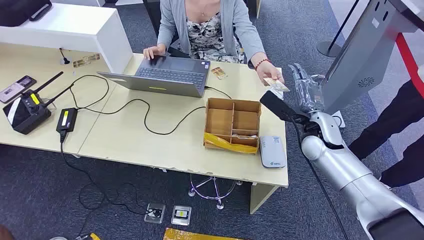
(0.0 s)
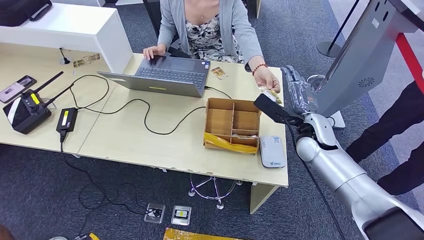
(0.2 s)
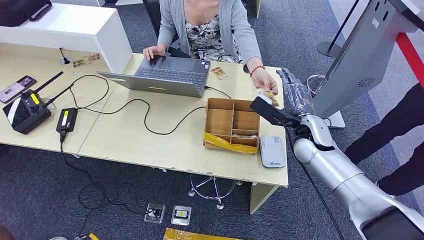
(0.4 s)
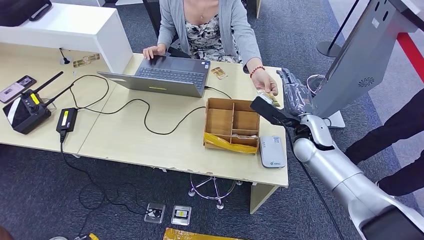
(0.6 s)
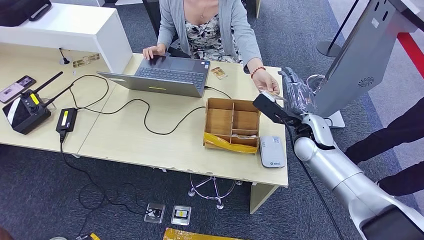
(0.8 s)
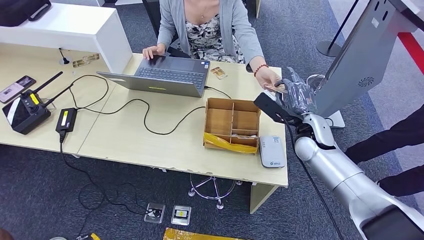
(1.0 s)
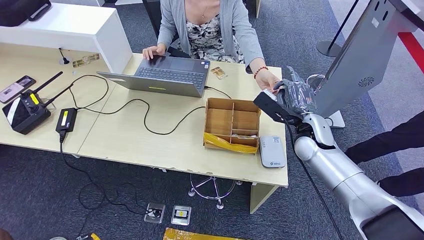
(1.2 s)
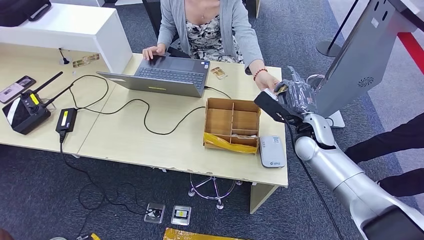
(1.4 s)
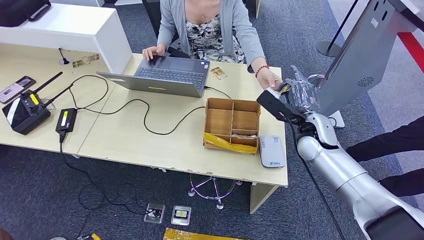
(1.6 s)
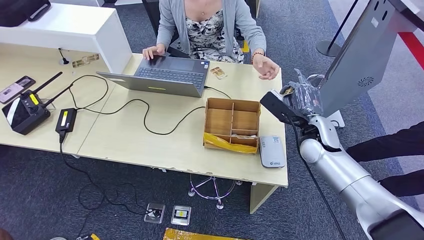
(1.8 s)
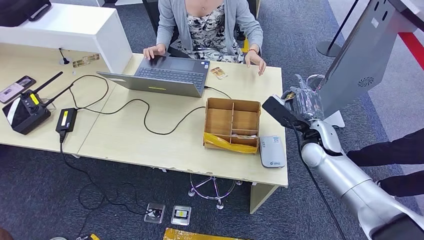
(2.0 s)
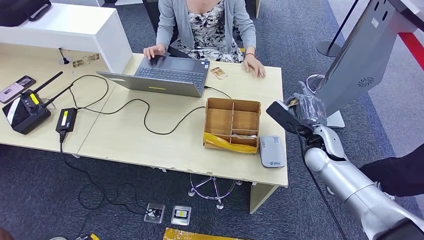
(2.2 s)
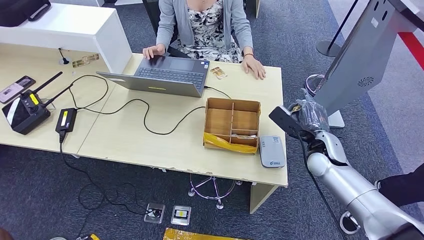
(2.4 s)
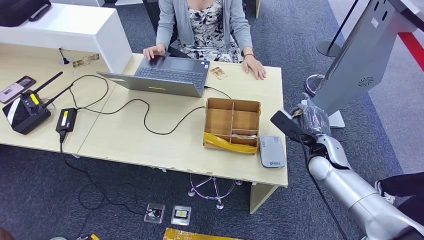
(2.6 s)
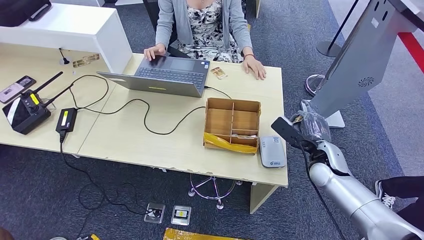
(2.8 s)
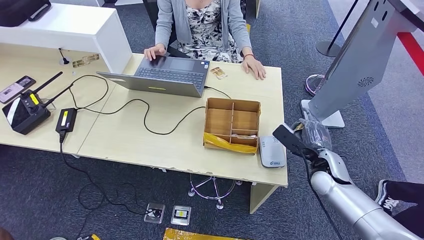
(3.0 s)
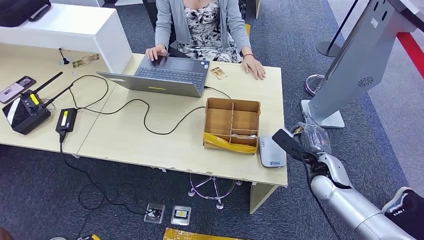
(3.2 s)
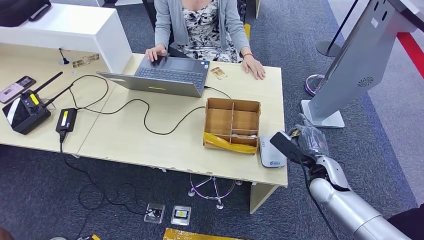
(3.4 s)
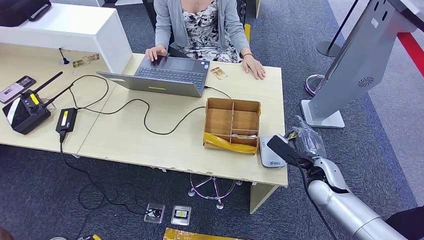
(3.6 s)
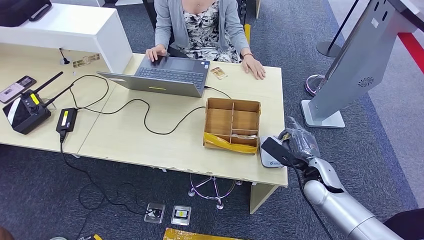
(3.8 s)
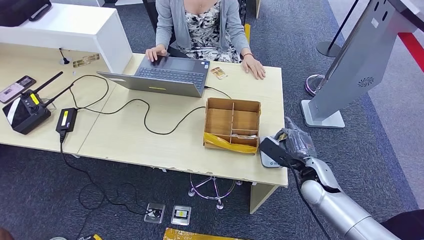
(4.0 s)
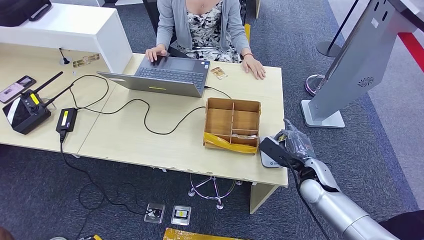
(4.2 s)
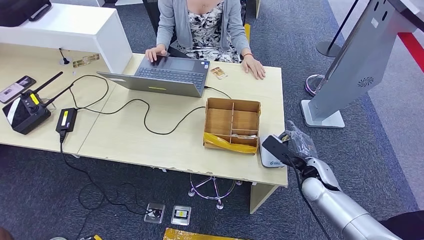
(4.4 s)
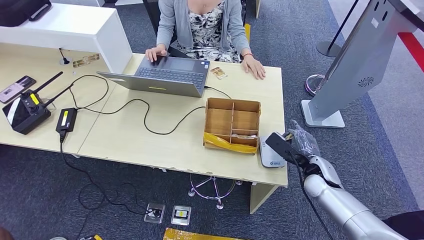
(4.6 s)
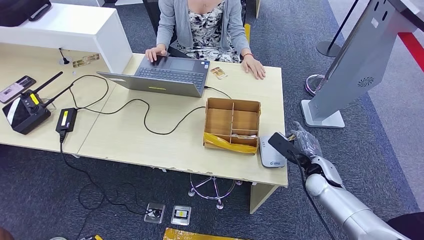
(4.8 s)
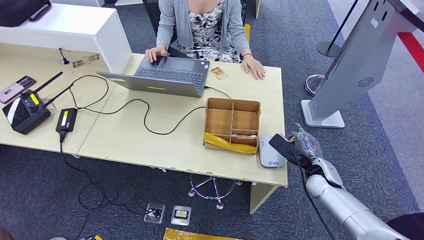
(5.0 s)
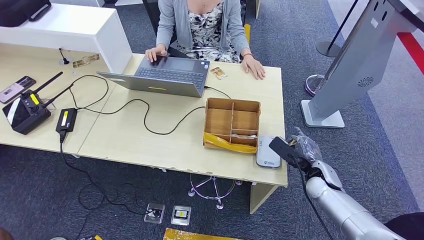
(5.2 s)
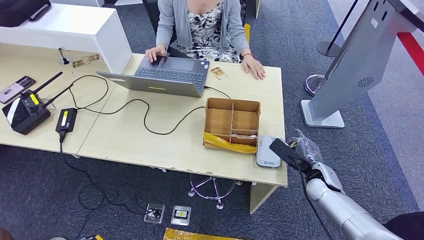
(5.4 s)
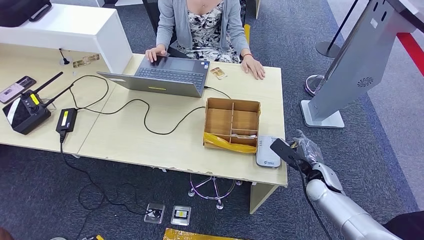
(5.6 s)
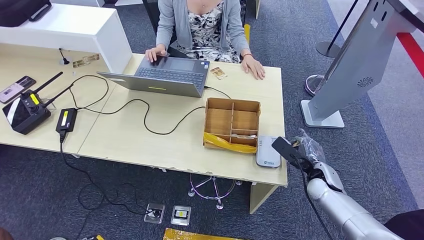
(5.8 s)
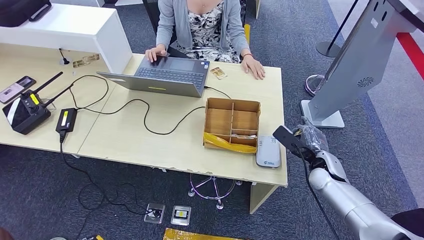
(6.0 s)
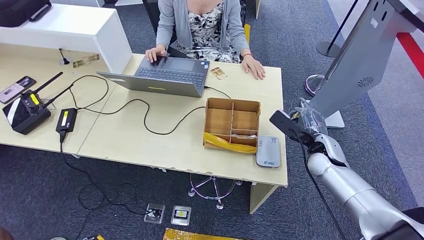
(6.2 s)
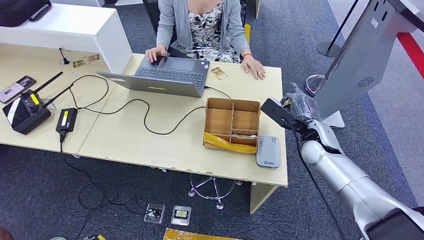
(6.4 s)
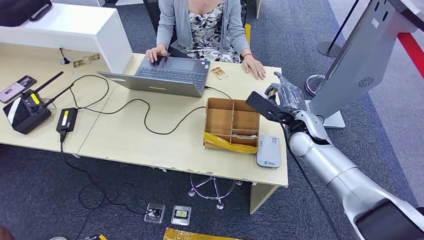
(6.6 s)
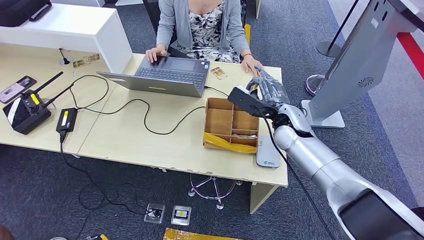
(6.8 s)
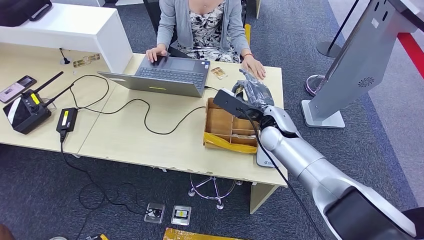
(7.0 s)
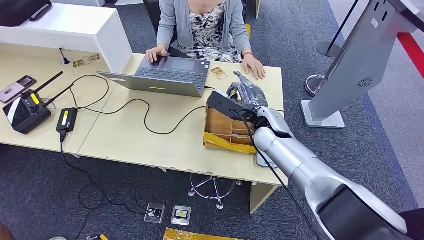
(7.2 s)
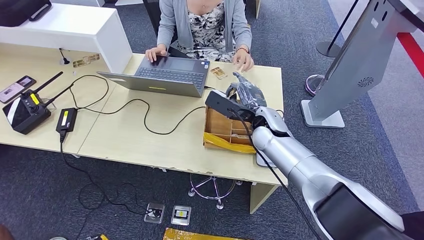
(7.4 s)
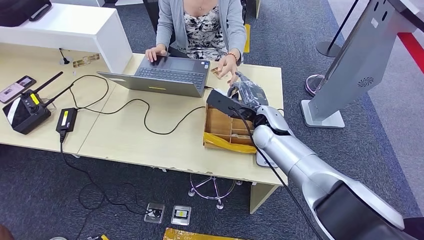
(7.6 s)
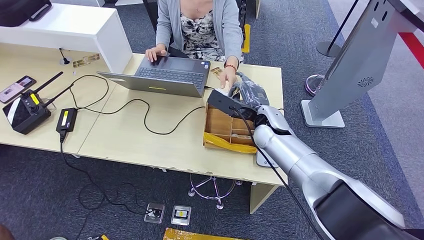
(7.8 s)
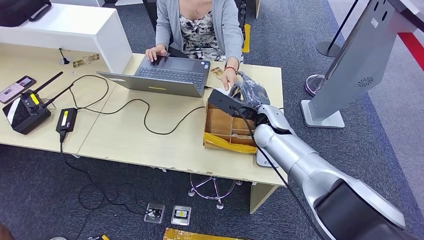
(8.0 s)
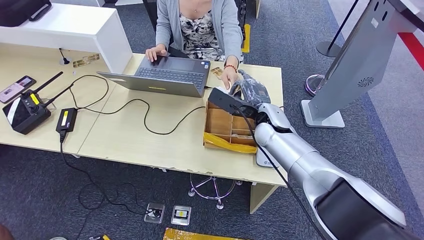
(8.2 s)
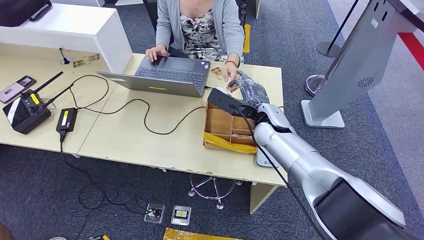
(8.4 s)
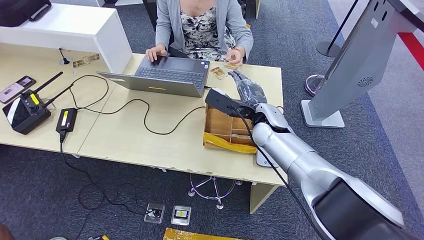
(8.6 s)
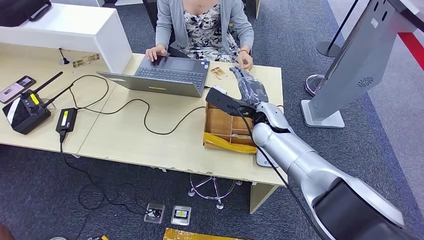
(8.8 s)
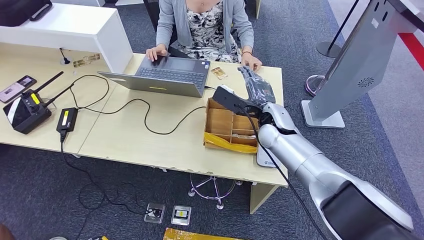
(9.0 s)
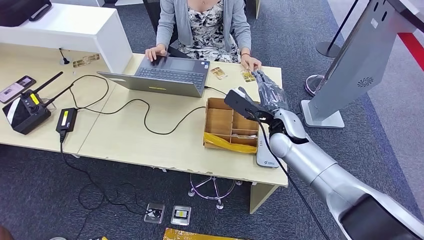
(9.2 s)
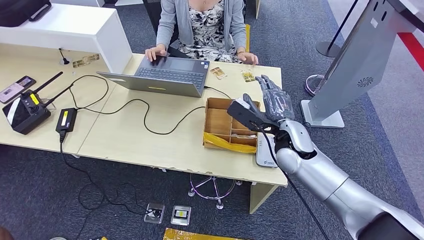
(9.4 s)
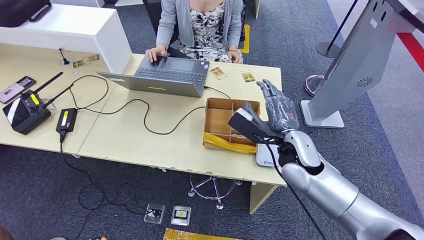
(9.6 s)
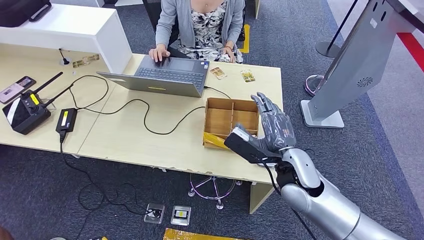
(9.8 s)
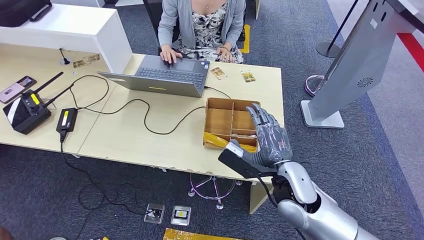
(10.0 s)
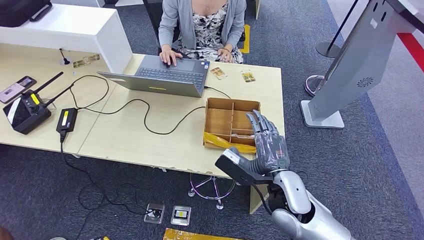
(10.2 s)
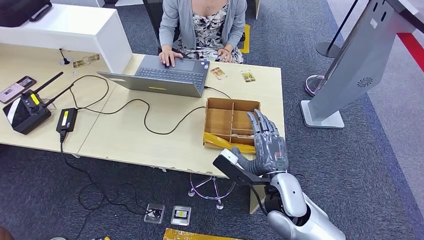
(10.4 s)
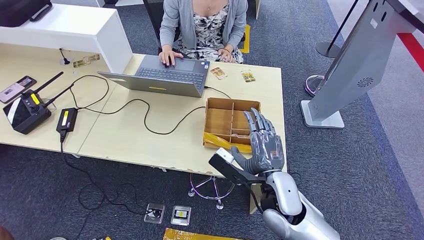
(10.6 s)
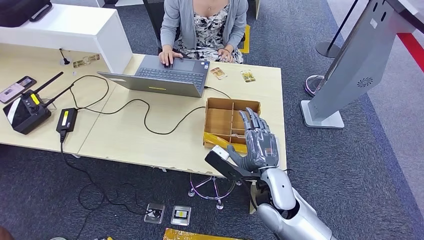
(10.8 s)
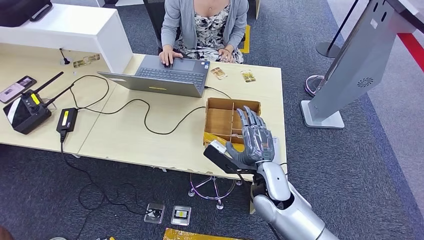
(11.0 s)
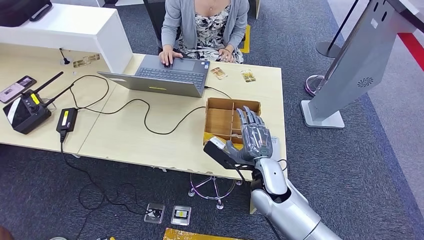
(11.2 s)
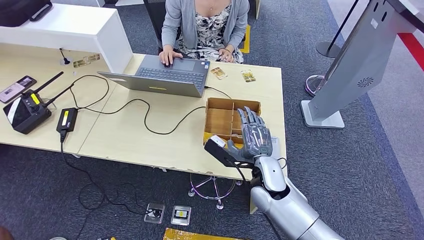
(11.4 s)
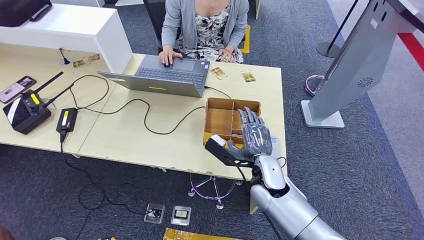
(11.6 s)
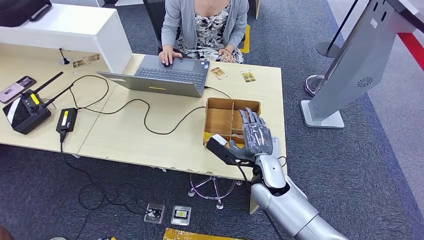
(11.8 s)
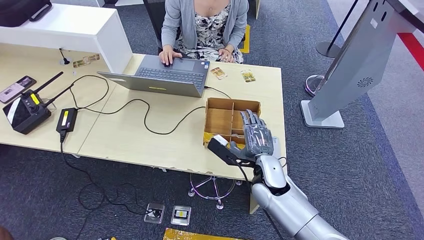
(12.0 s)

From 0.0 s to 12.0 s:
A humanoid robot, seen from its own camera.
Step, from 0.0 s to 2.4 s: Take the ID card from the person's hand.
Step, from 2.6 s to 5.0 s: Place the ID card on the card reader.
Step, from 5.4 s to 11.0 s: Hand the ID card to the person.
From 1.6 s to 3.0 s: The right hand is displaced downward, backward and to the right by about 10 cm.
From 3.0 s to 6.0 s: The hands stay close to where they were, moving slightly.
From 6.0 s to 7.6 s: The right hand is displaced to the left and upward by about 20 cm.
From 7.6 s to 9.0 s: Both hands stay about where they are.
From 9.0 s to 10.4 s: The right hand goes approximately 20 cm backward.
From 10.4 s to 12.0 s: The right hand moves forward, some 5 cm.

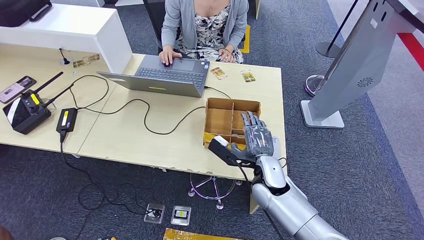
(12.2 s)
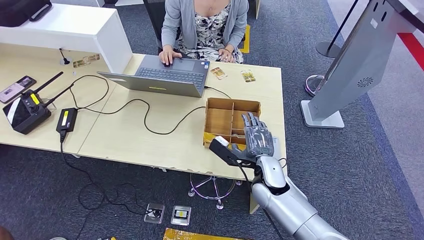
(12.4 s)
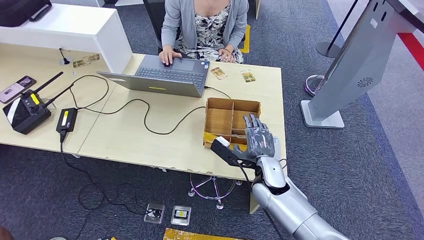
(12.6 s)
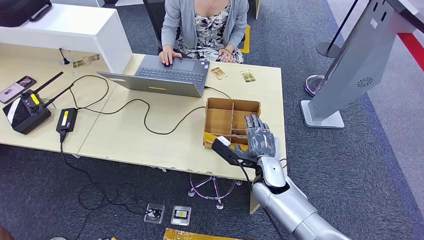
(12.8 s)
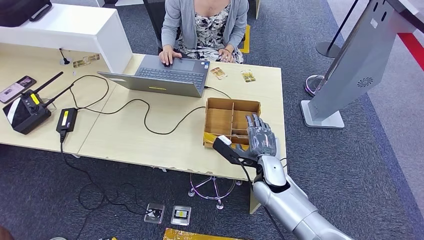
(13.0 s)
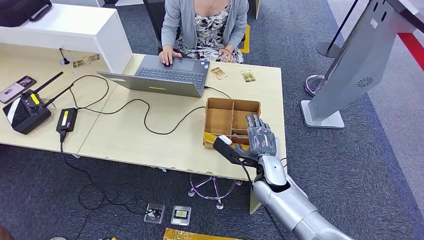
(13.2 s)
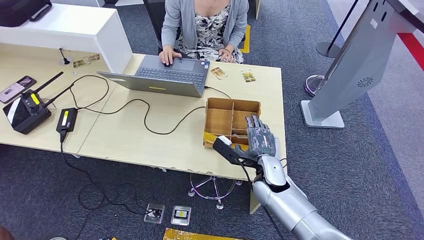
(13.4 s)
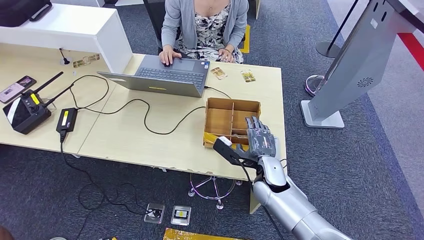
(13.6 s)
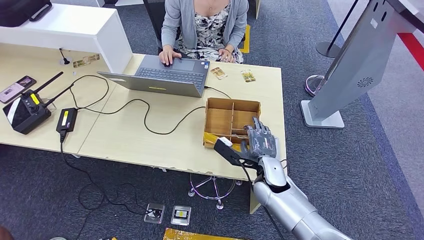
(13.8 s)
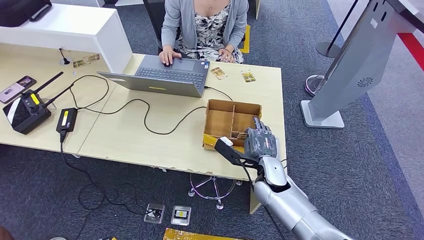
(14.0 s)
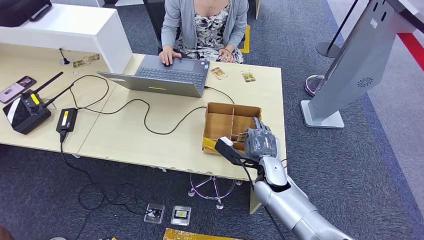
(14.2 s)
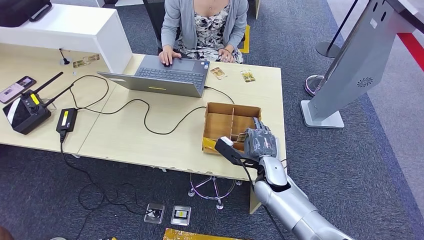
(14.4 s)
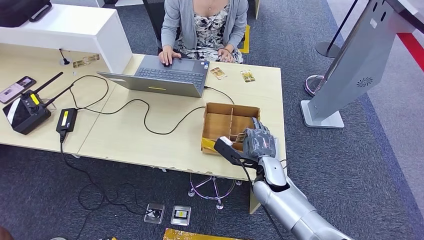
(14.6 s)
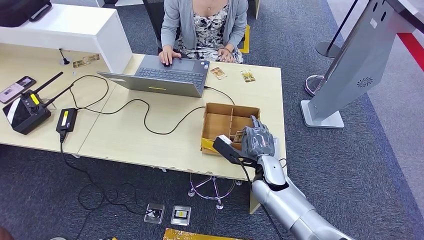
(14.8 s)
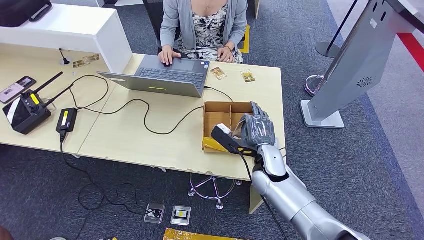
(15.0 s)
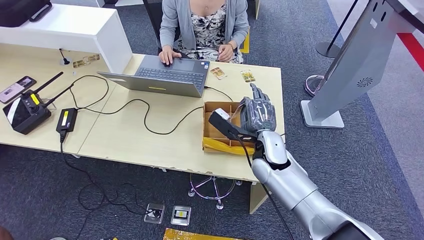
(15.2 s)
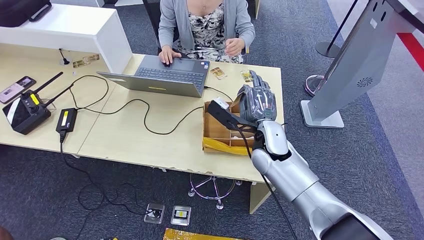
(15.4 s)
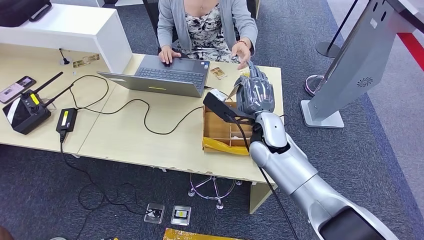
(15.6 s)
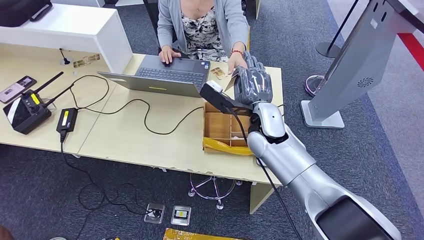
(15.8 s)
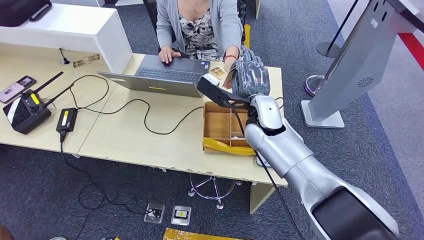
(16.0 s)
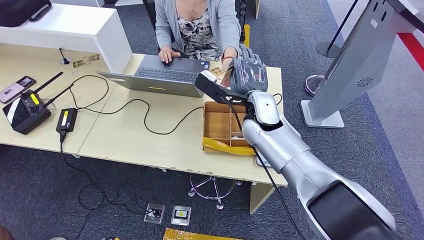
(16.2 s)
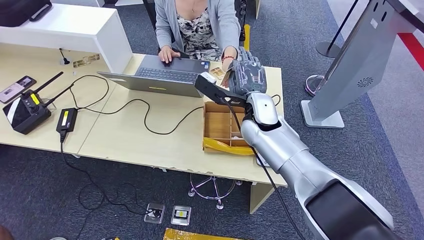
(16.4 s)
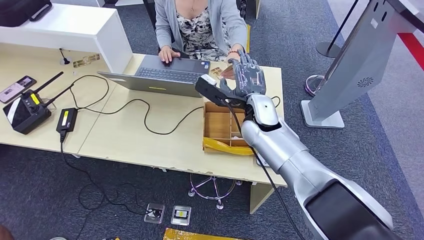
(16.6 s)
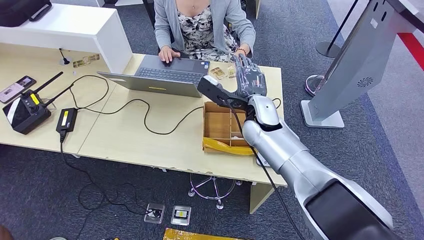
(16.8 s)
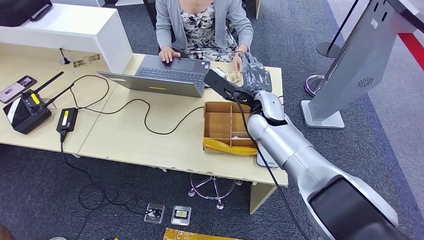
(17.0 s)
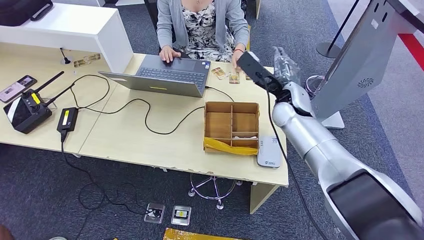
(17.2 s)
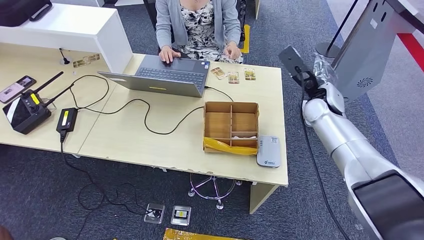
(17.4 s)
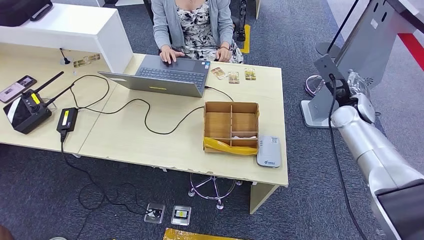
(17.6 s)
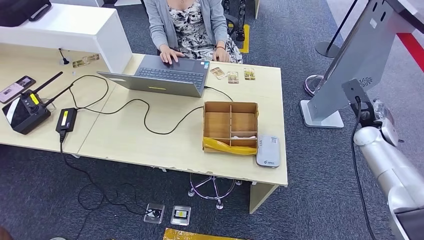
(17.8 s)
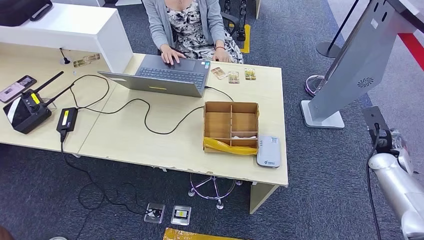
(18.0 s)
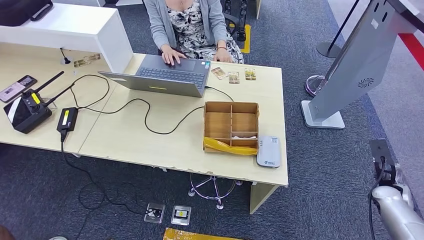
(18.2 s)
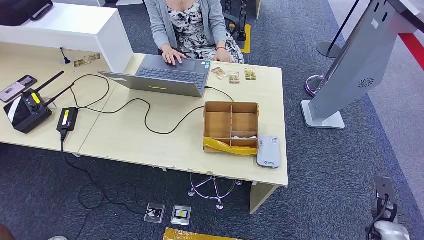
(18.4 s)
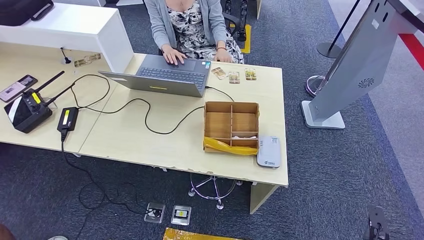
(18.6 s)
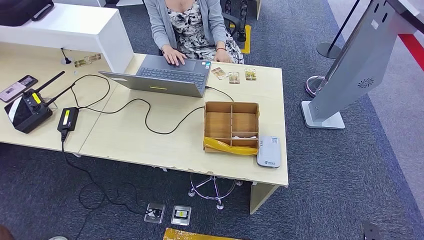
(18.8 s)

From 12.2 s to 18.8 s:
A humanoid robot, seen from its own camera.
Step, from 12.2 s to 16.4 s: Pick up the room key from the key card box.
From 12.2 s to 13.8 s: The hands stay close to where they were, moving slightly.
From 13.8 s to 15.4 s: The right hand travels upward and forward by about 10 cm.
From 17.2 s to 18.8 s: The right hand heads backward, downward and to the right, covering approximately 60 cm.
